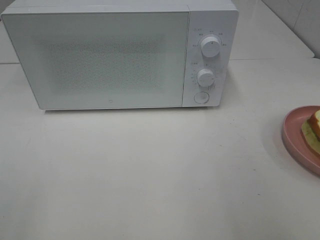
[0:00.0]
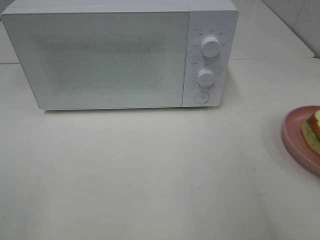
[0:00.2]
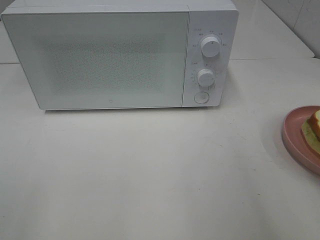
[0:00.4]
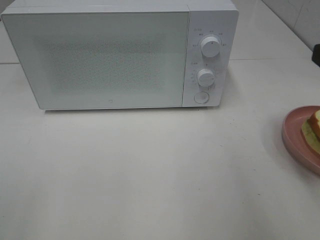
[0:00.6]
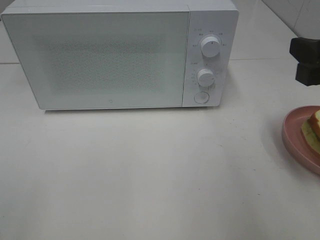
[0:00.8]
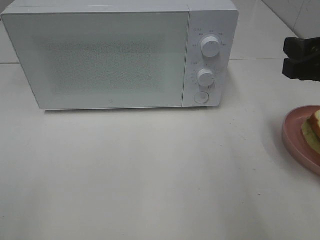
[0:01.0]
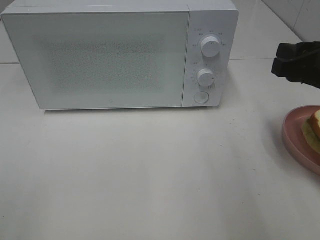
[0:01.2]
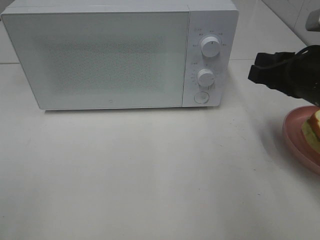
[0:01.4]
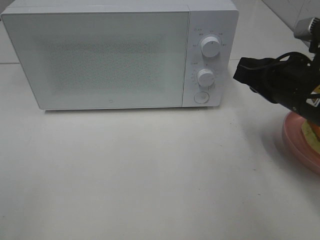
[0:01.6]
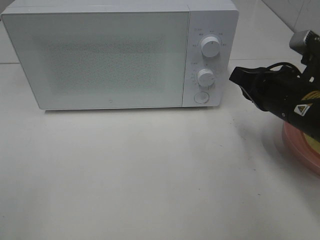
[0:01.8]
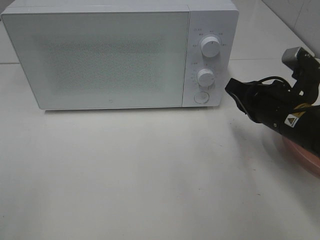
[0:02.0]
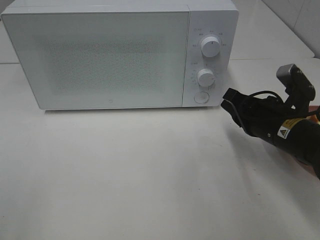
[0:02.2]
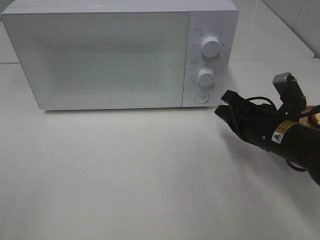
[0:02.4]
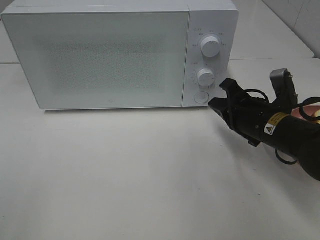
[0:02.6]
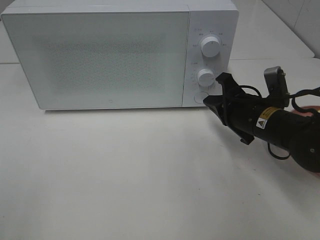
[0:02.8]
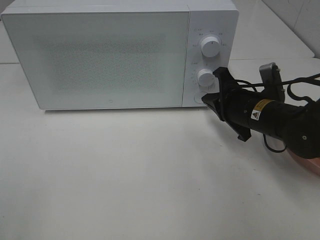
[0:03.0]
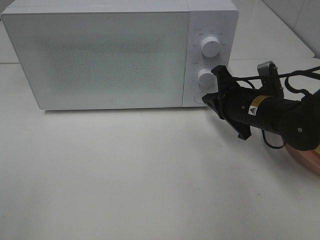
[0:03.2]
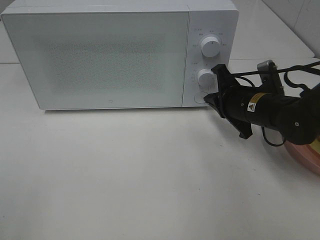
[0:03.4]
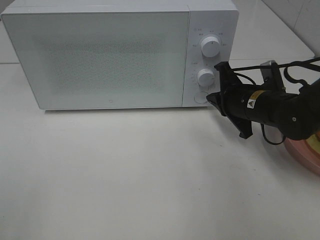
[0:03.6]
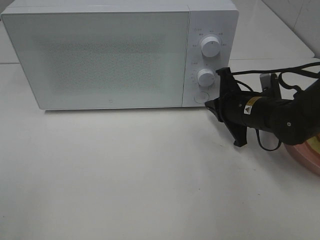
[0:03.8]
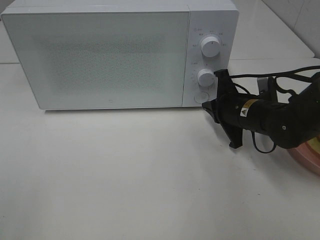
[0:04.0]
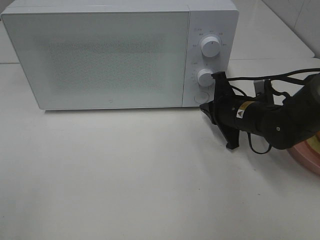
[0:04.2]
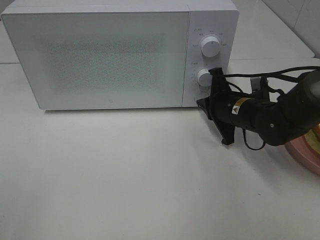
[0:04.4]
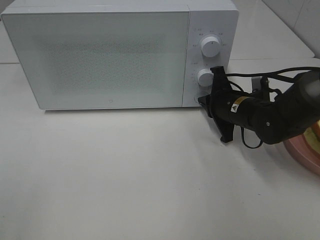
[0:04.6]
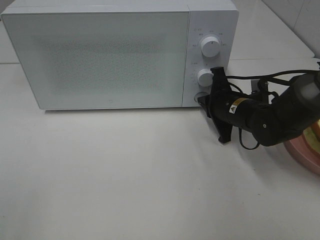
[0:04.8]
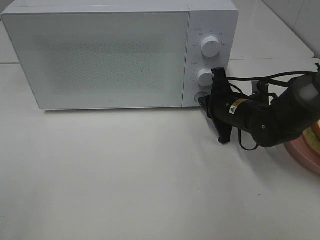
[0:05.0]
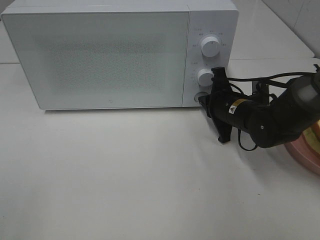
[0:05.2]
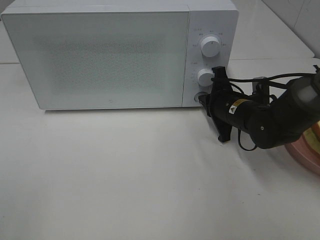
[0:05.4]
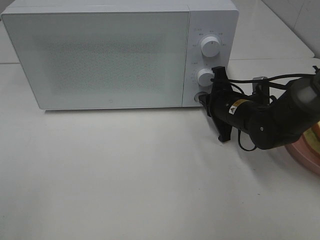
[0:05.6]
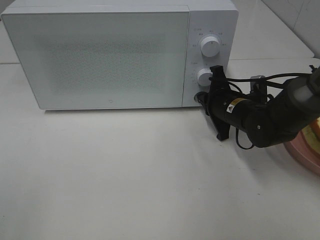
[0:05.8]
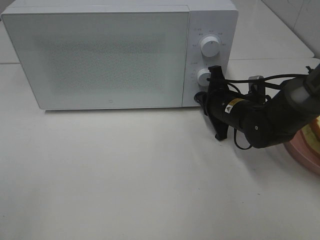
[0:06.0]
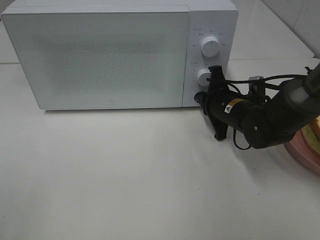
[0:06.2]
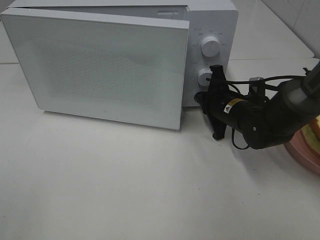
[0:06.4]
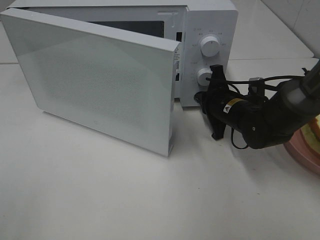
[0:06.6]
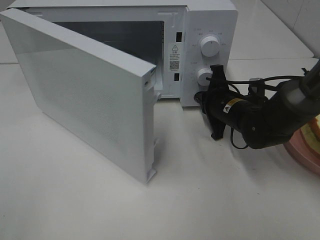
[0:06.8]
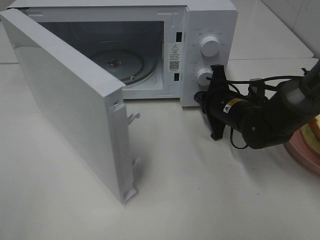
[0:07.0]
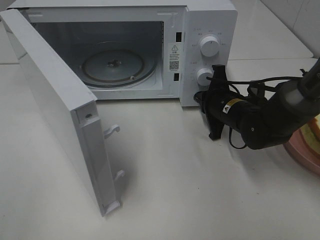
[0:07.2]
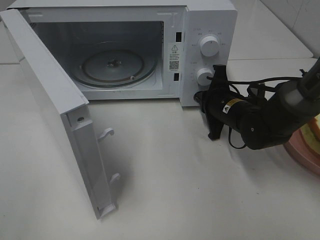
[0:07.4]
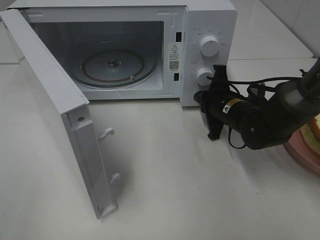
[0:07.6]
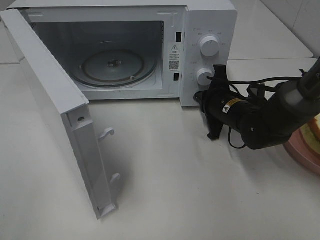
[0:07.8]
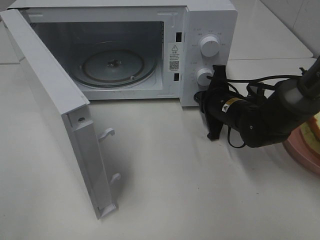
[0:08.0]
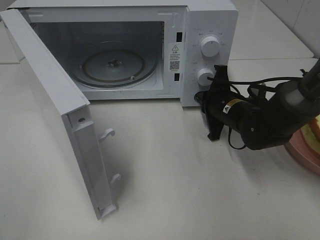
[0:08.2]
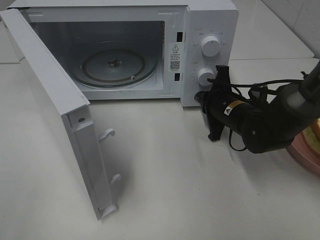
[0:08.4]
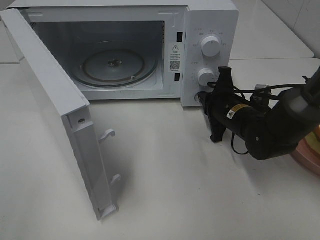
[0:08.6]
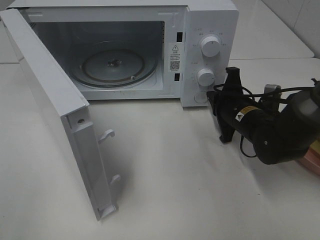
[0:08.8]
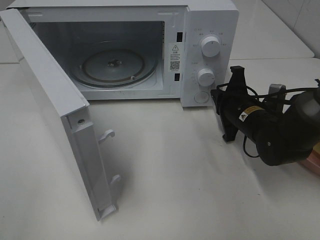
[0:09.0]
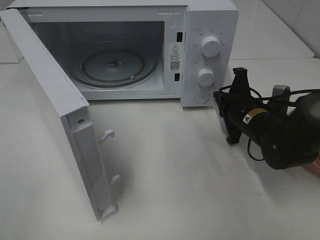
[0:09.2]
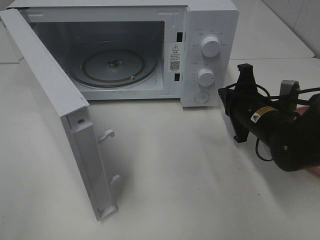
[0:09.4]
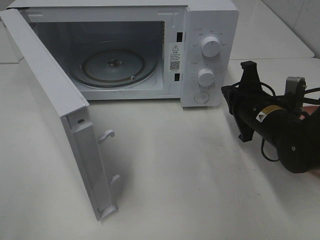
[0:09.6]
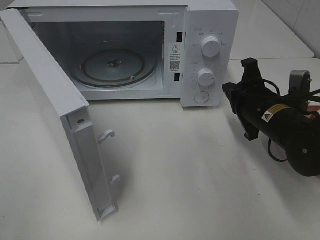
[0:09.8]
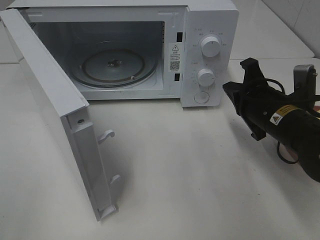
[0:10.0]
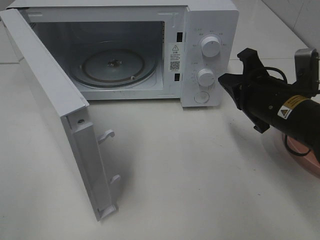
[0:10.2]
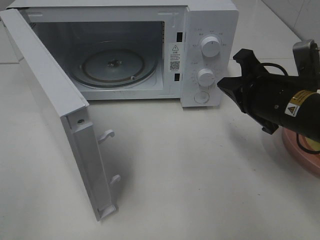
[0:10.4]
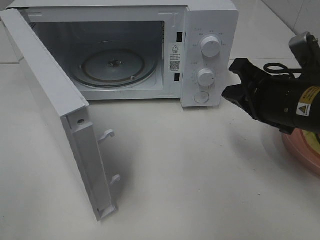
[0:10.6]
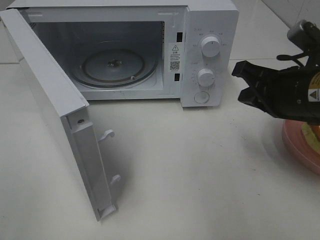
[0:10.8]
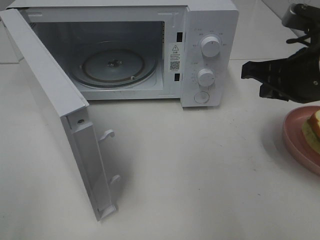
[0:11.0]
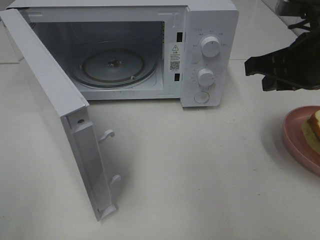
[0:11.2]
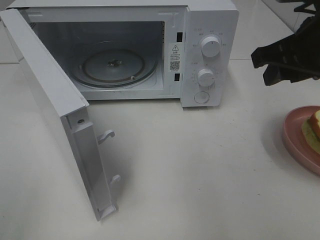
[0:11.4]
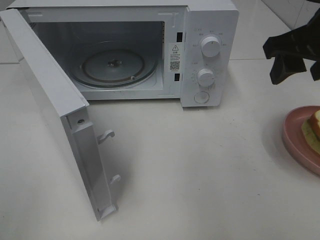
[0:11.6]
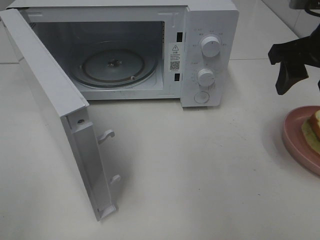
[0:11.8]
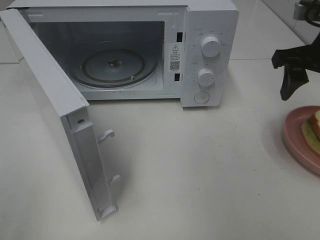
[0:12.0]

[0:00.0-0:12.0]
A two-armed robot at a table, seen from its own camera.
Task of the whole recording: Heat Sandwich.
Step, 0:00.0 to 0:09.0: Right hand: press the switch.
0:00.0 to 0:01.6: The right gripper moves forward, downward and to the left, about 20 cm, and closes its fingers.
0:01.6 to 0:03.0: The right gripper heads downward and forward, covering roughly 10 cm.
0:03.0 to 0:04.4: The grippers make only small movements.
0:04.4 to 0:06.0: The grippers move only a little.
0:07.6 to 0:09.0: The grippers make only small movements.
0:09.0 to 0:10.4: The right gripper moves upward and backward, some 15 cm.
0:10.4 to 0:12.0: The right gripper goes some 10 cm upward, to the right and forward, and opens up.

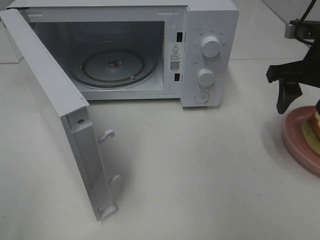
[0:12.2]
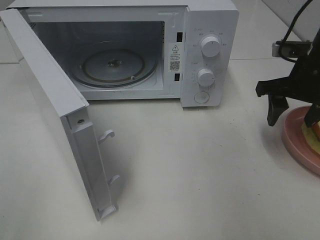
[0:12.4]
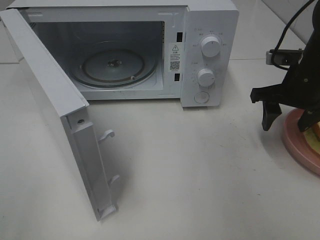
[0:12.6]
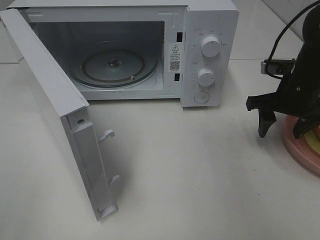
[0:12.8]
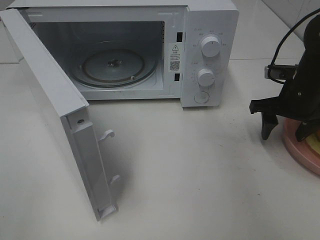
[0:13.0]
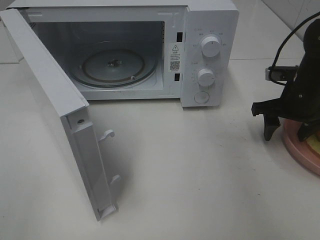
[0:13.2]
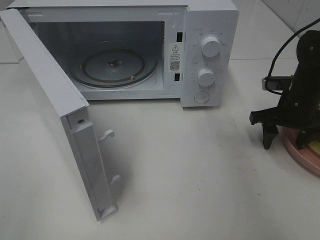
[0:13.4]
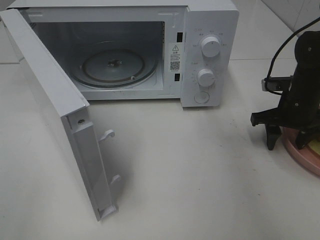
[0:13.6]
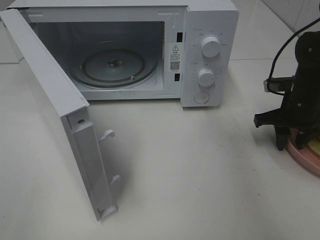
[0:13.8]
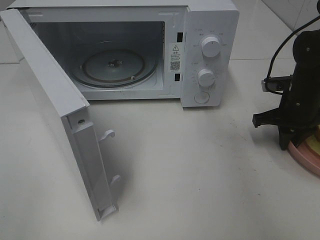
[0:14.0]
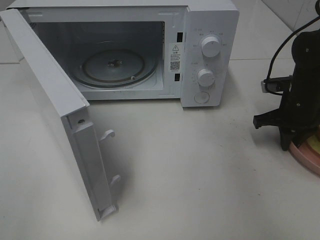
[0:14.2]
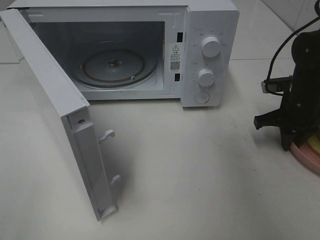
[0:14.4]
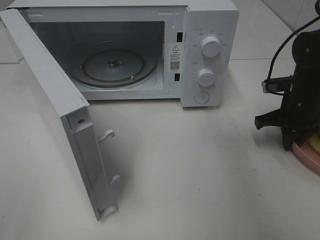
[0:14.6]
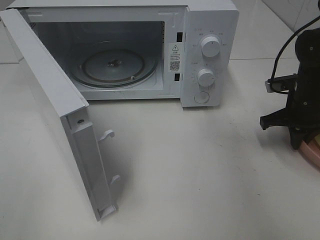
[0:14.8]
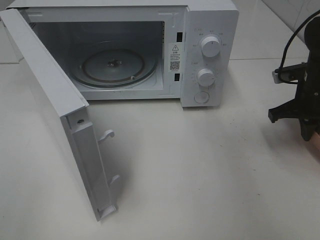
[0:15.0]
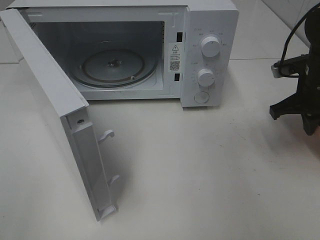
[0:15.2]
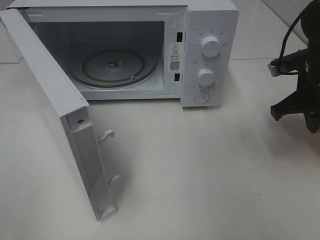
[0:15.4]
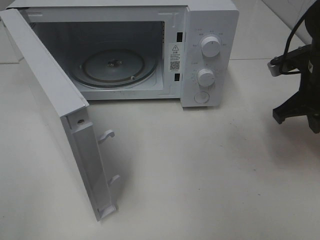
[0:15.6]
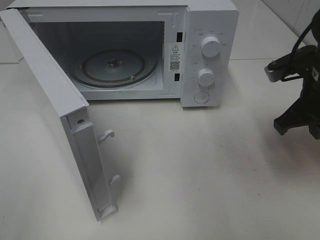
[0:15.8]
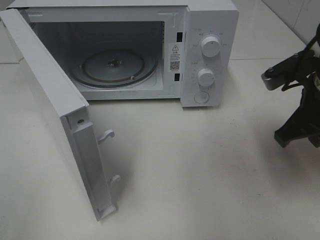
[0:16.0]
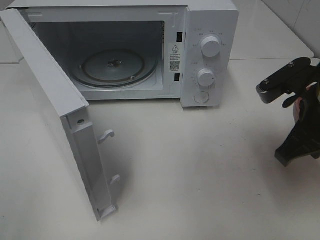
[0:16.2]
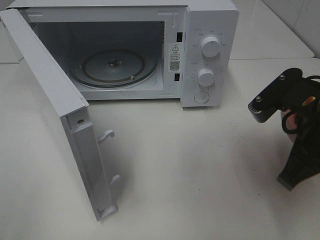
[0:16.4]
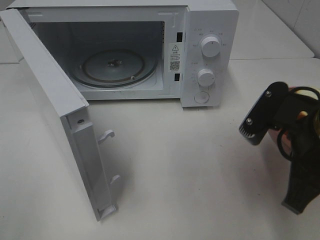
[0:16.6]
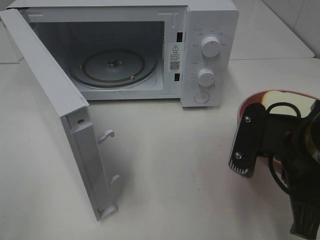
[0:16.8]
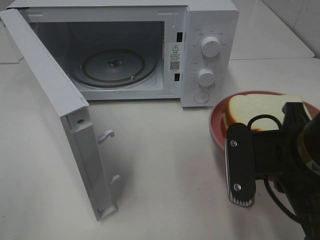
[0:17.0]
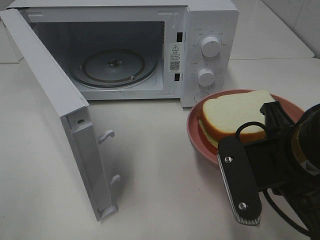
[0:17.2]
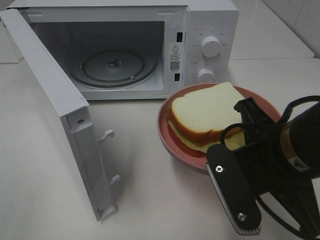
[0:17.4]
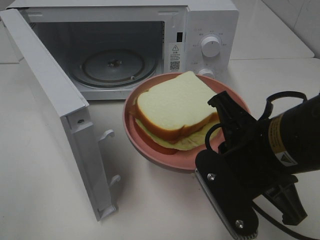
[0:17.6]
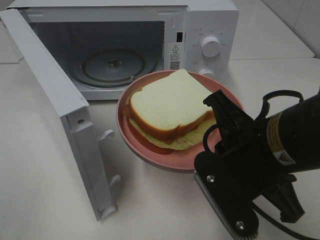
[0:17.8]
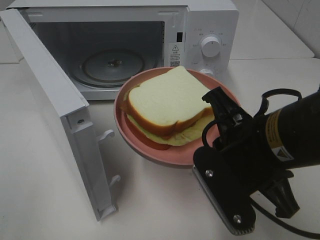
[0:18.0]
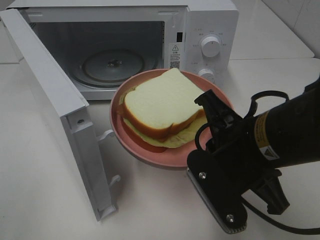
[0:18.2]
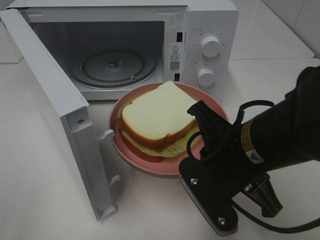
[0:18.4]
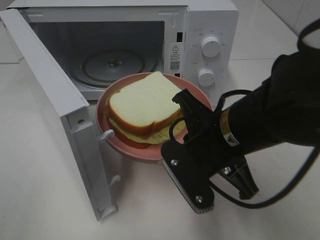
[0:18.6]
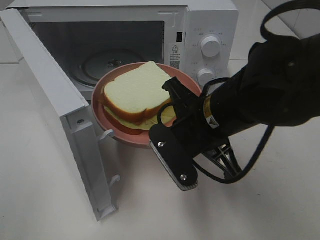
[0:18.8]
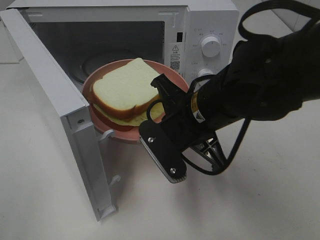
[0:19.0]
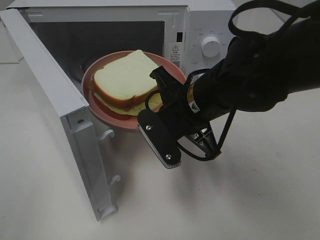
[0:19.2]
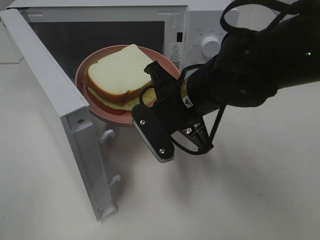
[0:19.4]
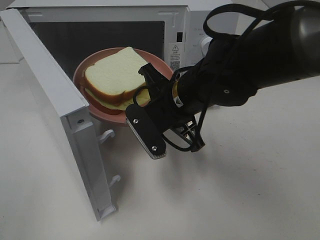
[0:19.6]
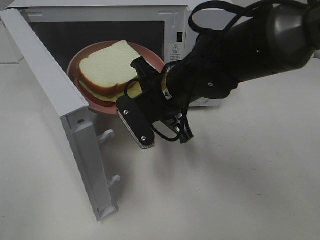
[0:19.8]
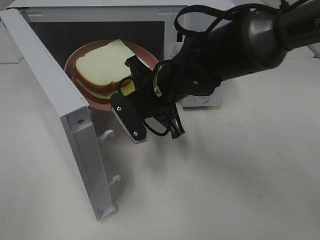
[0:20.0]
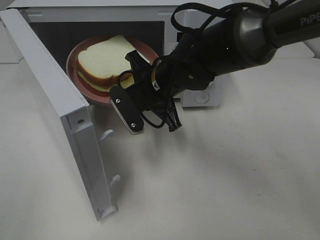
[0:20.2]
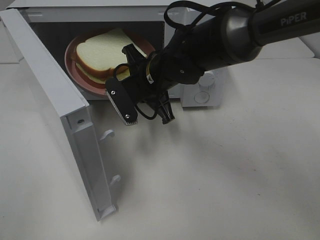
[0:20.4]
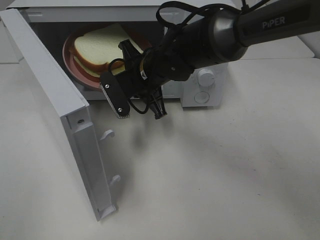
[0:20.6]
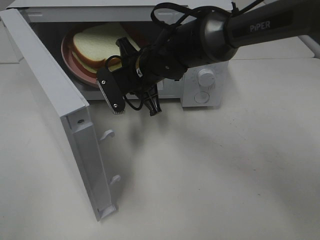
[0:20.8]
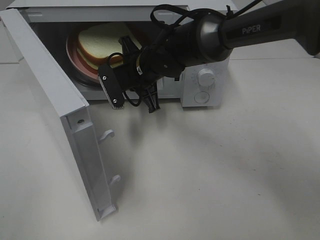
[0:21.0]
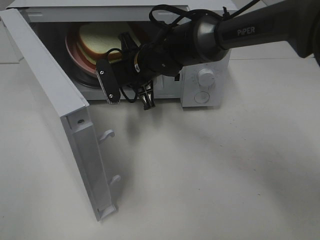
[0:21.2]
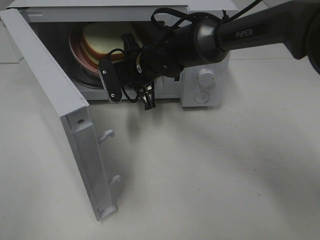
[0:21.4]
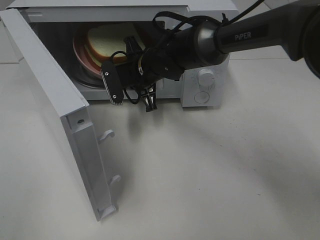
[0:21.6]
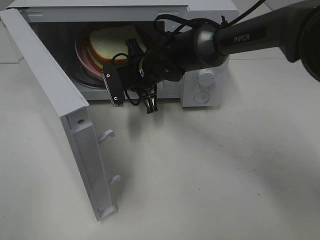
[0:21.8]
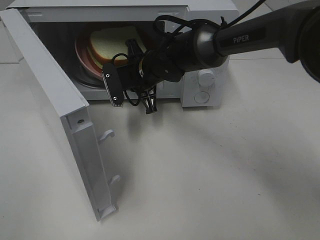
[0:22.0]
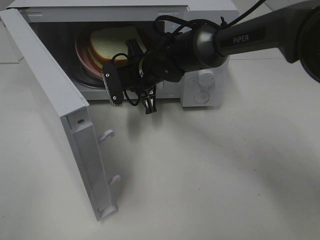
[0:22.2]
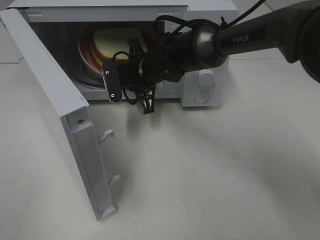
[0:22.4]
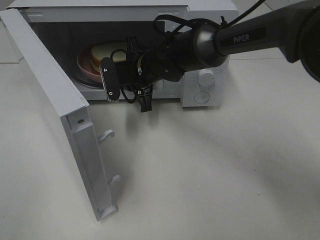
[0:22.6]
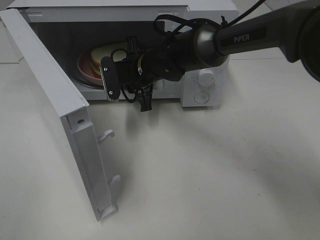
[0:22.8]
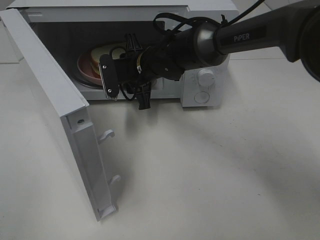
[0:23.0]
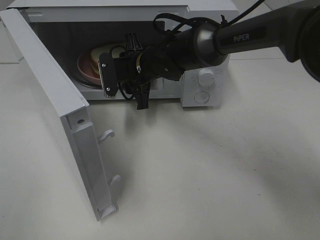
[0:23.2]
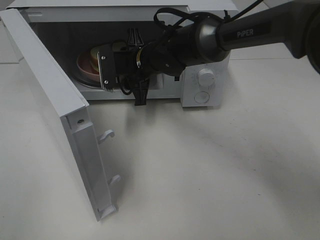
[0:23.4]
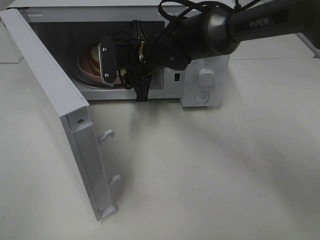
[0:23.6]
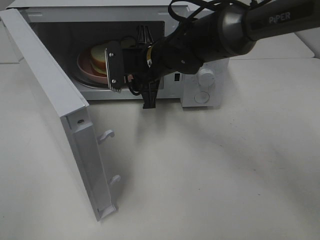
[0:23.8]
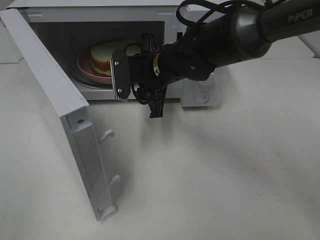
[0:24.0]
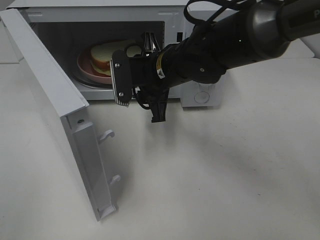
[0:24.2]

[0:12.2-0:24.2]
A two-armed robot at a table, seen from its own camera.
Task of the whole recording: Heat Sandwich.
Step, 0:12.2 to 0:14.2: Right hand: grab the plate with the sandwich.
Step, 0:14.4 to 0:24.0: Right hand: place the plate in the microwave.
0:12.2 to 0:13.8: The right gripper moves downward, some 10 cm.
0:13.8 to 0:15.2: The right gripper shifts some 5 cm upward, and closes its fingers.
0:15.2 to 0:16.6: The right gripper is displaced backward and to the left by approximately 20 cm.
0:16.6 to 0:18.2: The right gripper is displaced to the left by roughly 5 cm.
0:18.2 to 0:19.8: The right gripper shifts some 15 cm forward and to the left.
0:19.8 to 0:21.2: The right gripper heads forward, covering roughly 10 cm.
0:21.2 to 0:22.6: The grippers stay close to where they were, moving slightly.
0:22.6 to 0:24.2: The right gripper heads backward, covering some 10 cm.
